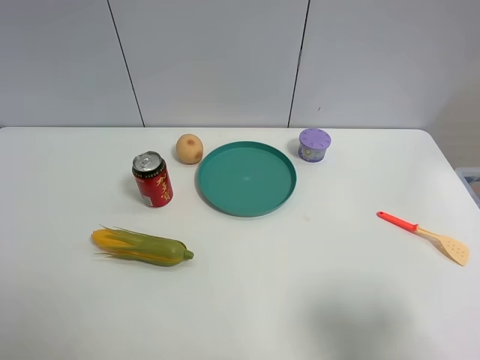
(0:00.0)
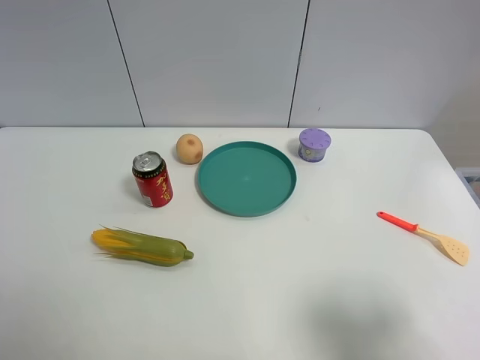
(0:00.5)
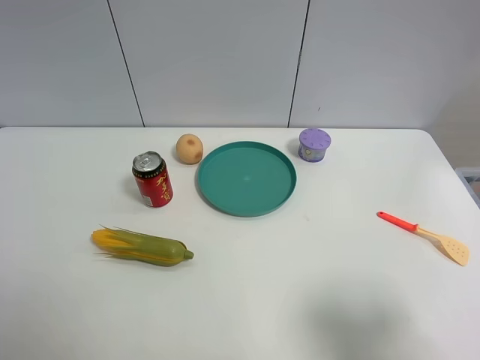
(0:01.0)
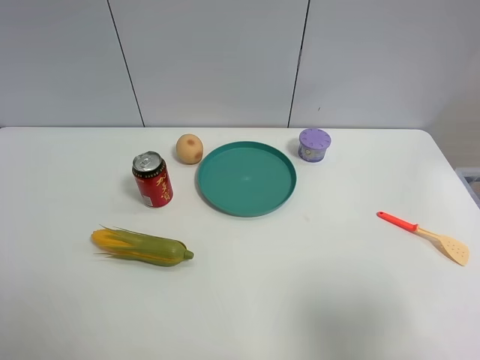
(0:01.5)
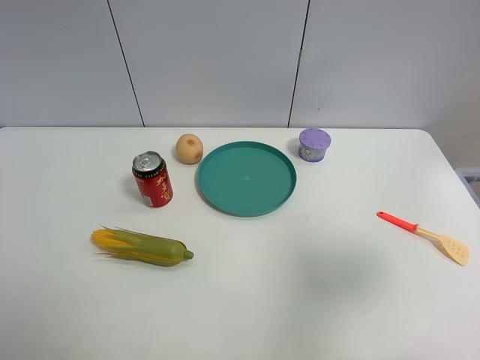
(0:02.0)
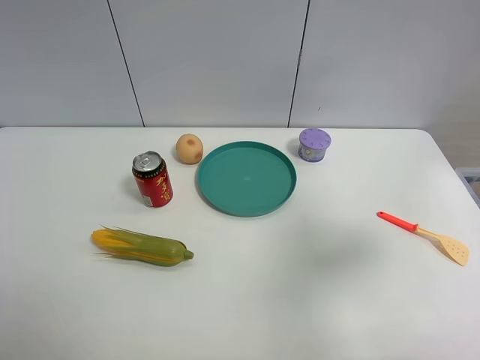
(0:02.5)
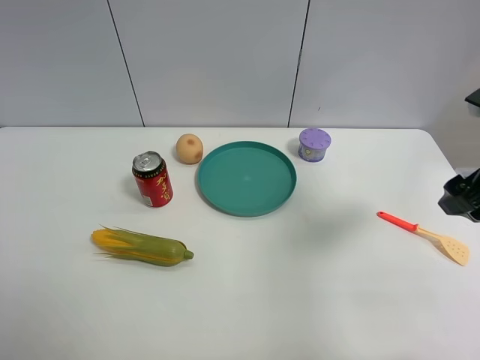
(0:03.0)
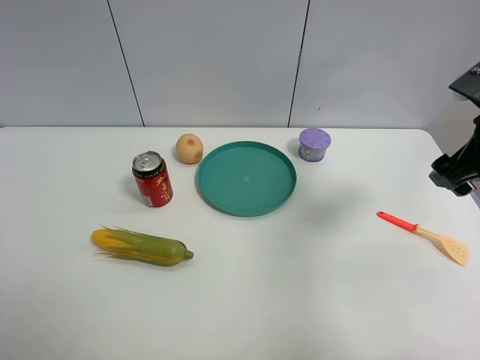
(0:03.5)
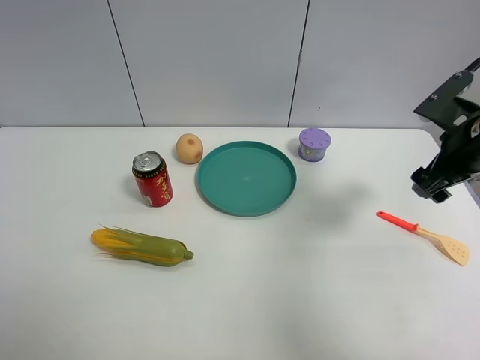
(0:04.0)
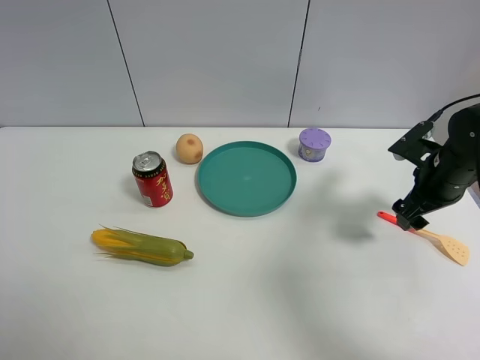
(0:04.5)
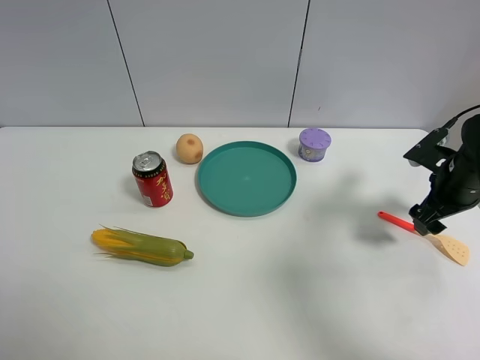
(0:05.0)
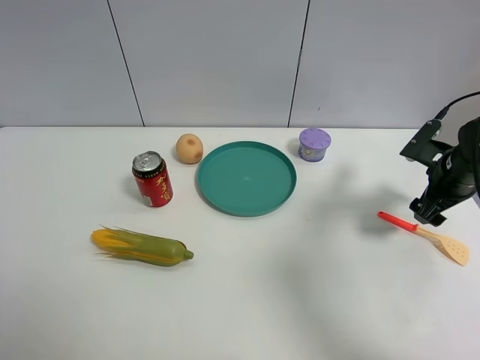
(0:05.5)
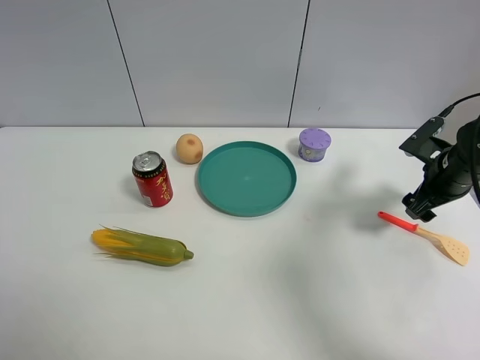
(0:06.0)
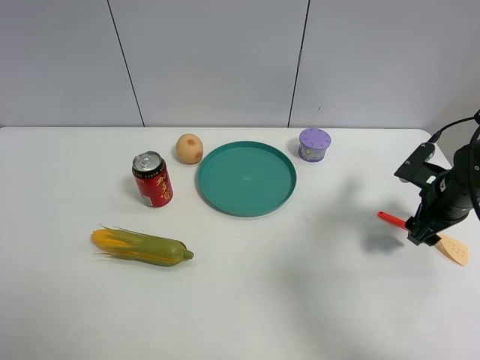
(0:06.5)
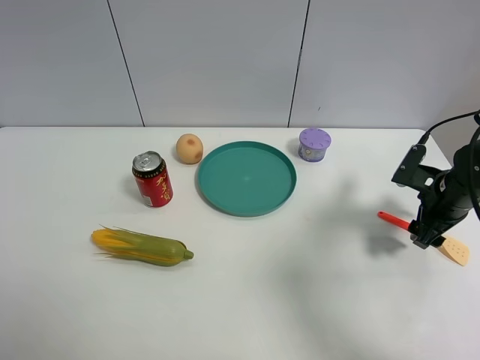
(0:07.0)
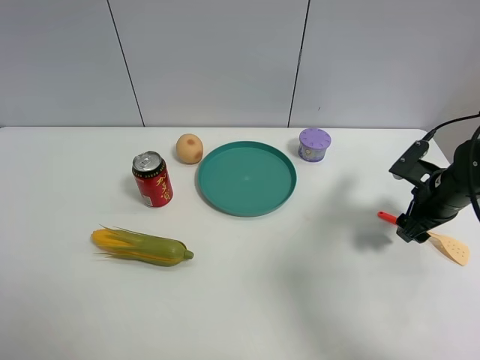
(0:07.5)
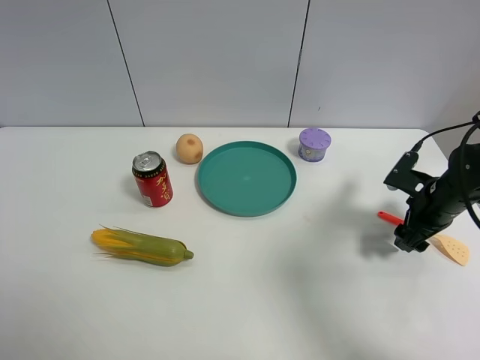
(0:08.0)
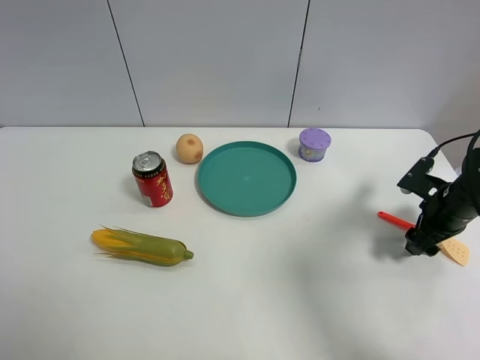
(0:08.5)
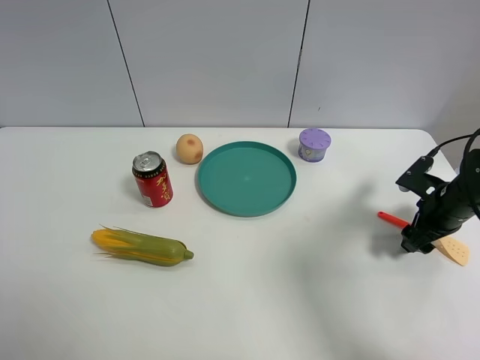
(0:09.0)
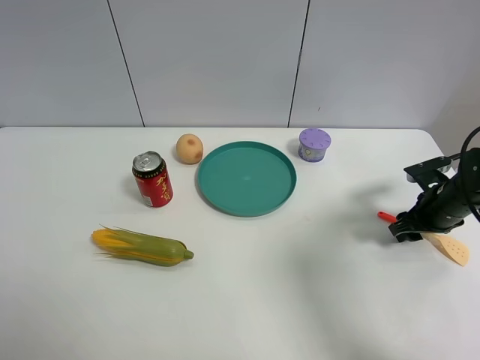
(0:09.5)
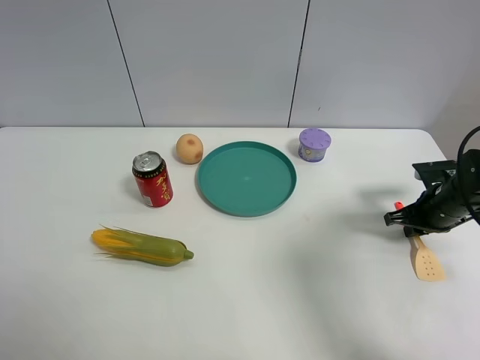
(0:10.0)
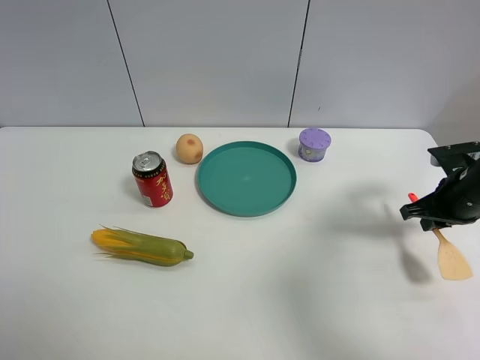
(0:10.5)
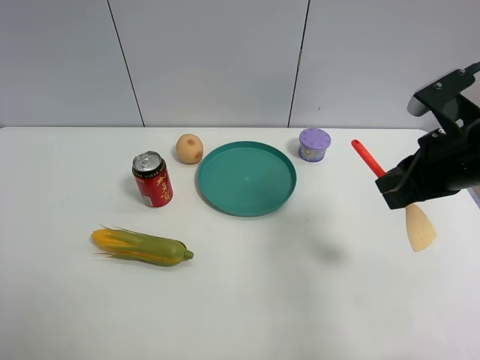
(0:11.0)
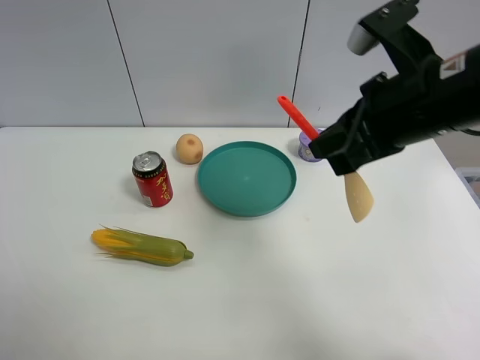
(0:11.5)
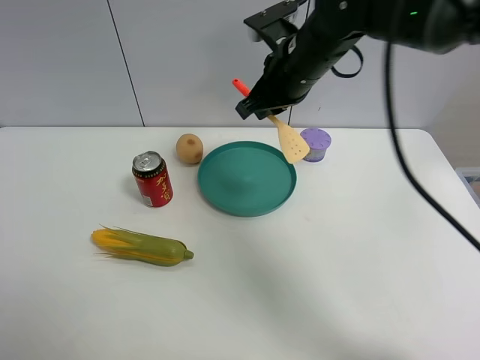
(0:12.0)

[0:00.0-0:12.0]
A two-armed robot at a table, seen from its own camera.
Task of the whole recording: the gripper move the object.
Step, 0:00.0 to 0:10.0: Grasp the cooking shovel with the right gripper.
0:00.0 to 0:02.0: The right gripper travels upward and forward by roughly 10 cm.
0:02.0 to 0:04.0: The right gripper travels forward and downward by approximately 25 cm.
0:04.0 to 0:06.0: The right gripper travels downward by approximately 10 cm.
0:06.0 to 0:08.0: The grippers stay close to where they were, moving slightly.
0:08.0 to 0:10.0: The right gripper closes up.
0:10.0 to 0:12.0: The right gripper heads to the left and upward, covering approximately 35 cm.

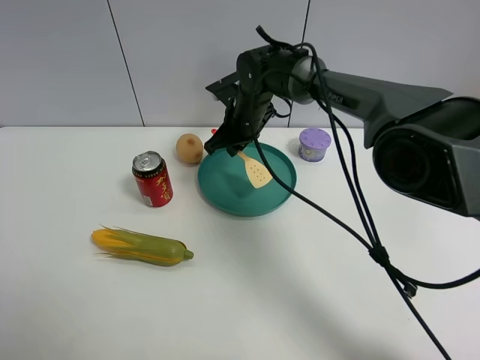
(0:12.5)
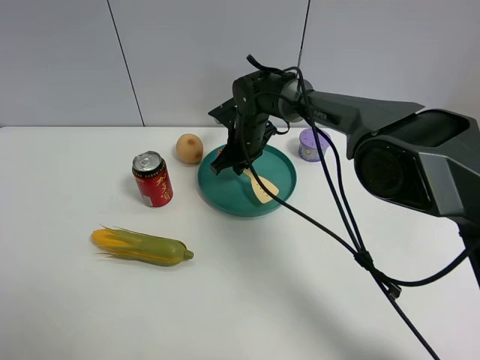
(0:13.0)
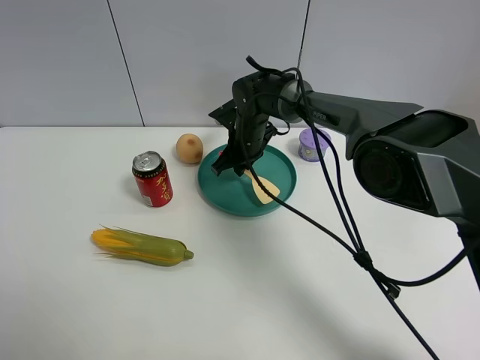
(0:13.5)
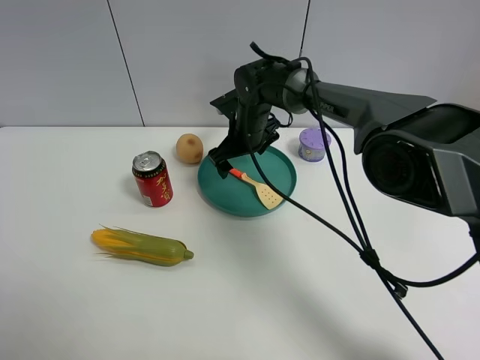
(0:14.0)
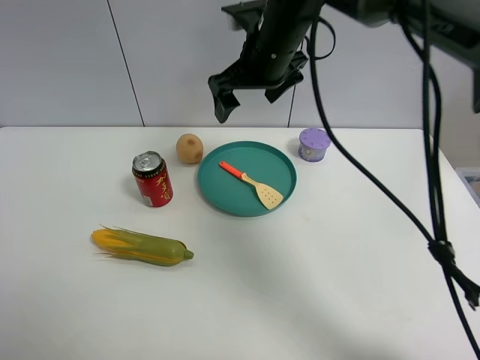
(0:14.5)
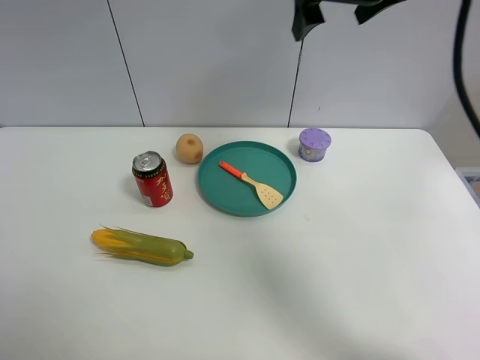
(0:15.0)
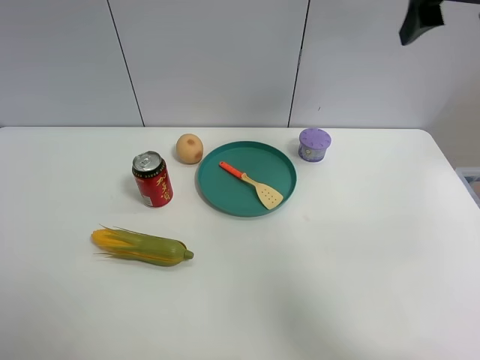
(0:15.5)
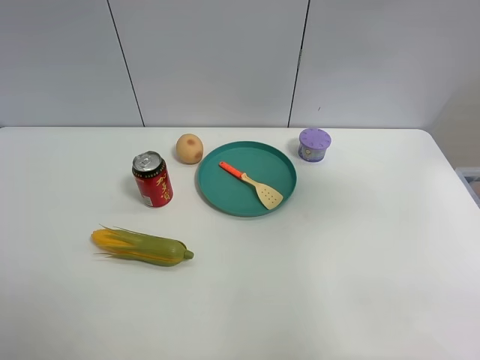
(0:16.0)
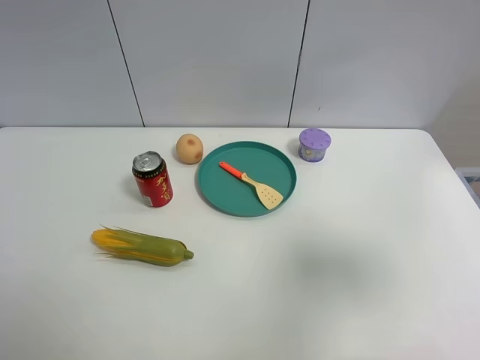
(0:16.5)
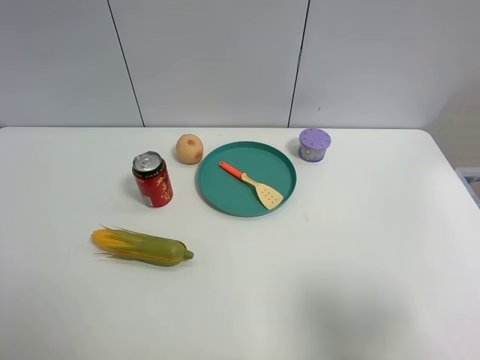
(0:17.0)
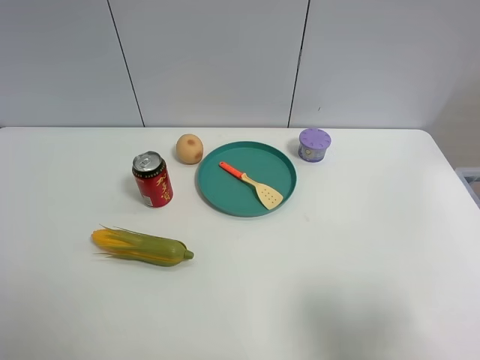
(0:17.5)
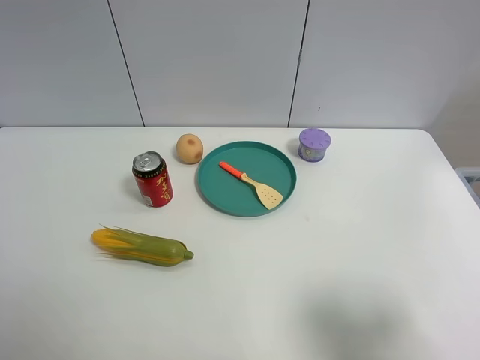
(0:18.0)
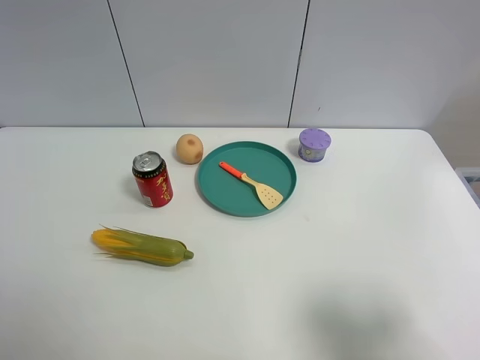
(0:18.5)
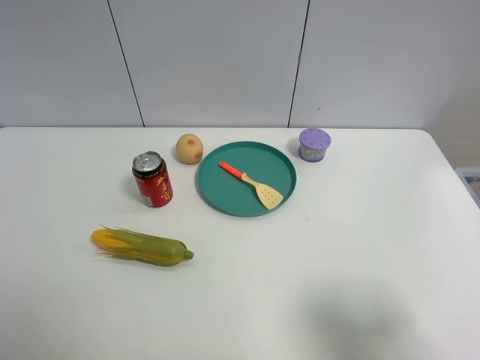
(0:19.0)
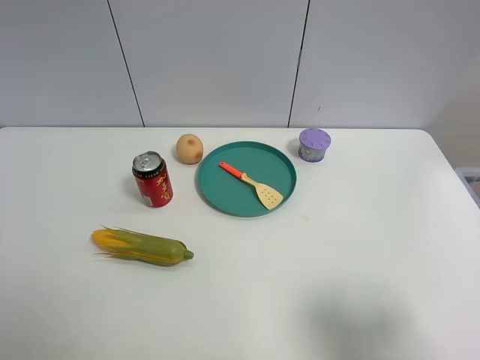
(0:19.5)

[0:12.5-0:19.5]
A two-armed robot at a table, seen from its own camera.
Task of the whole recording: the gripper move the object.
0:12.5 to 0:14.5: The right gripper moves upward, approximately 15 cm, and opens.
0:14.5 to 0:16.0: The right gripper travels to the right, backward and upward by approximately 35 cm.
0:16.0 to 0:17.5: The right gripper goes some 25 cm backward and downward.

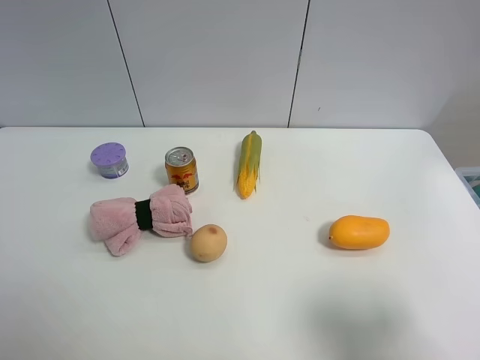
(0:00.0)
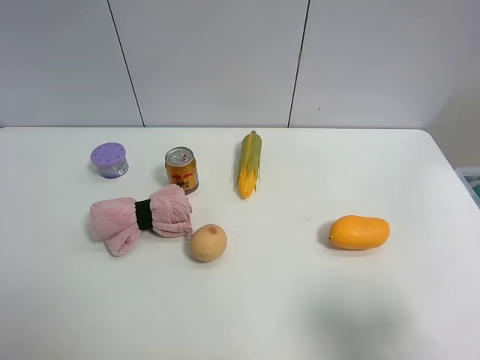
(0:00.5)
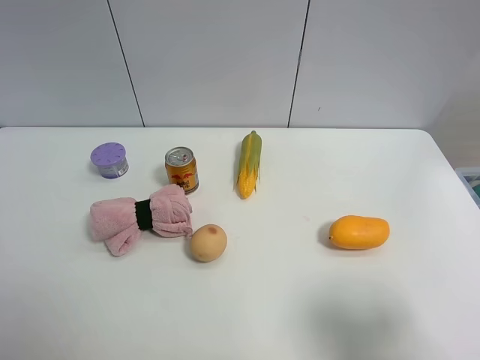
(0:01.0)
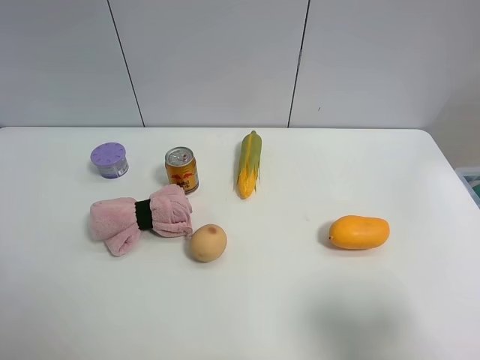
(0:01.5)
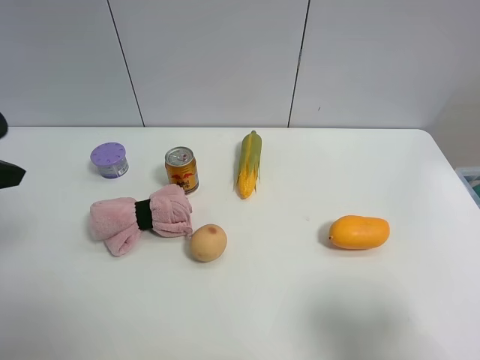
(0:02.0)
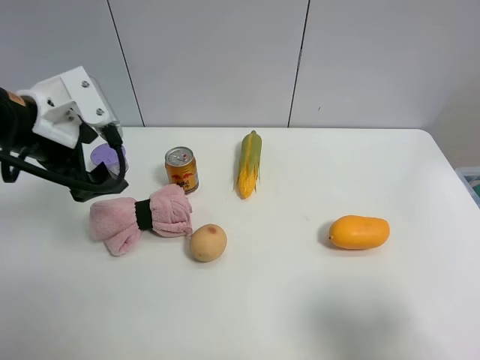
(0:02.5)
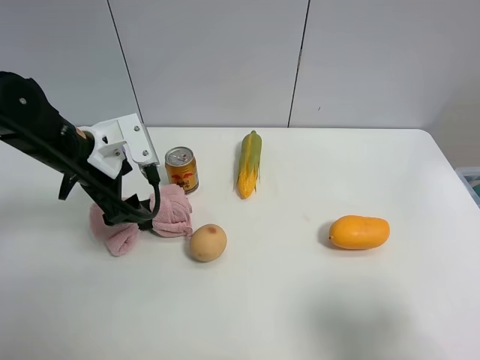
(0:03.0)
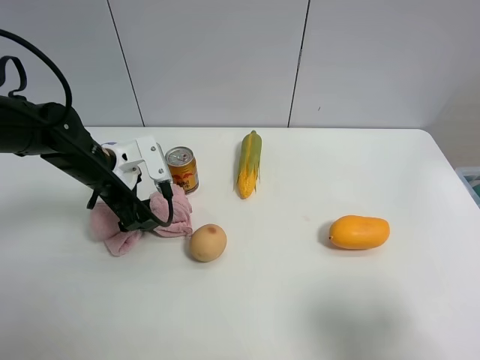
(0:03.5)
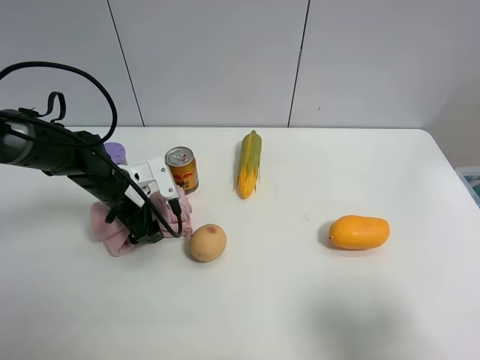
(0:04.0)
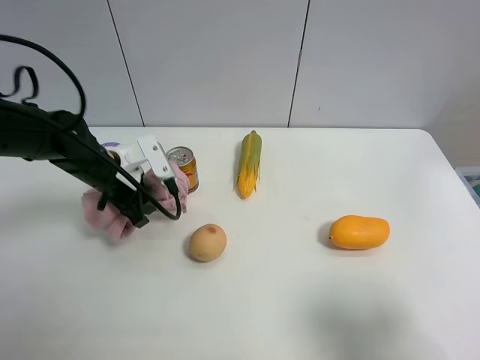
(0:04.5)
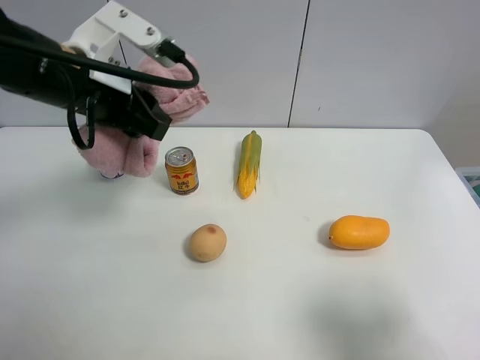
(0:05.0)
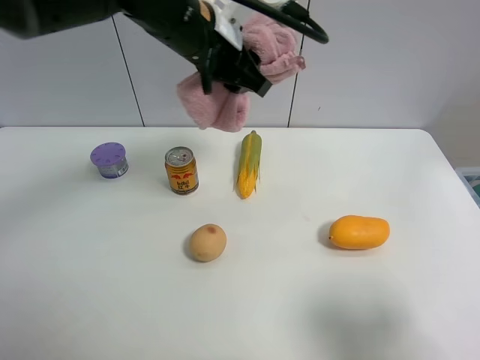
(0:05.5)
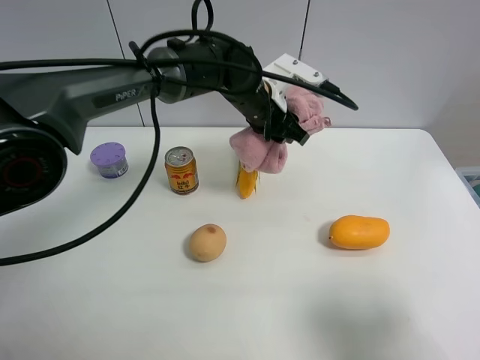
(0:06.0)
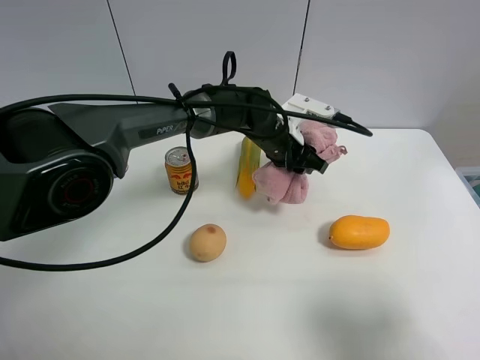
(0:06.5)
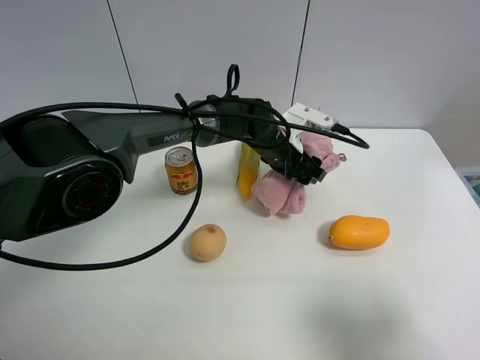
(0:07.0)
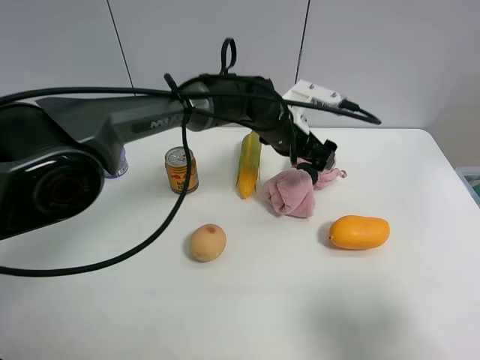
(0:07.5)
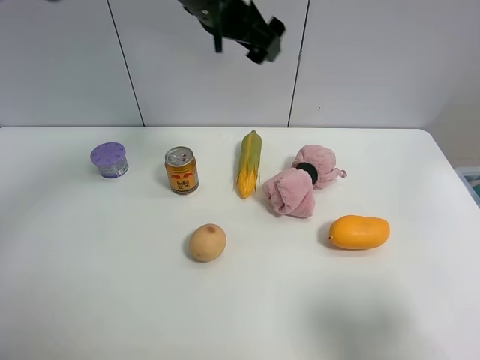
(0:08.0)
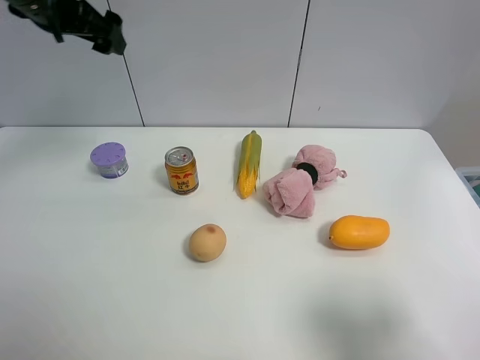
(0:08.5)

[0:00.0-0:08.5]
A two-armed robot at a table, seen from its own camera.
Task of the whole recording: the gripper move the object.
Step, 0:00.0 to 0:04.0: Grasp the pink towel with the left gripper.
Step, 0:04.5 to 0:07.0: Place the pink towel on the table with the left gripper.
0:02.0 to 0:04.0: The left gripper is displaced downward, forward and to the right by roughly 30 cm.
0:04.0 to 0:06.5: The left gripper is displaced to the right by roughly 25 cm, and closes up.
0:06.5 to 0:08.5: The left gripper goes some 35 cm to the left and upward, and opens.
